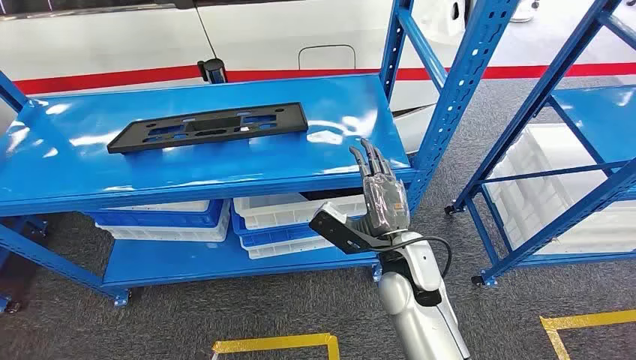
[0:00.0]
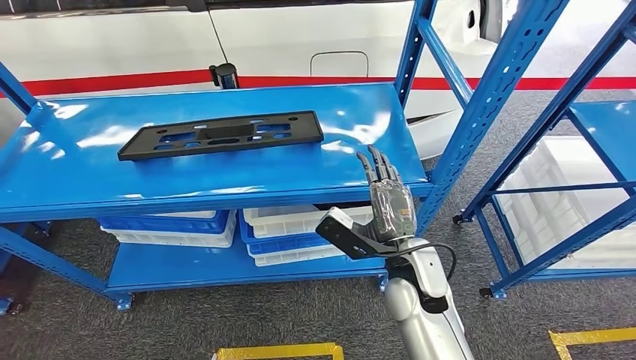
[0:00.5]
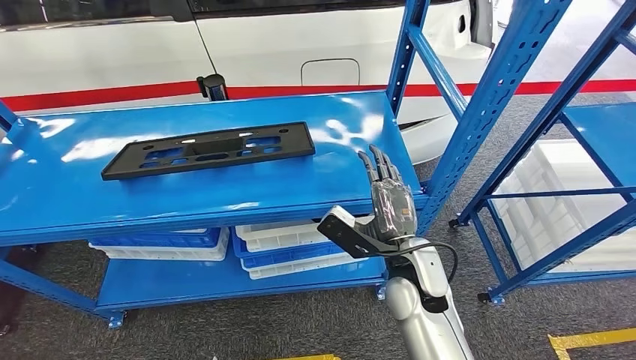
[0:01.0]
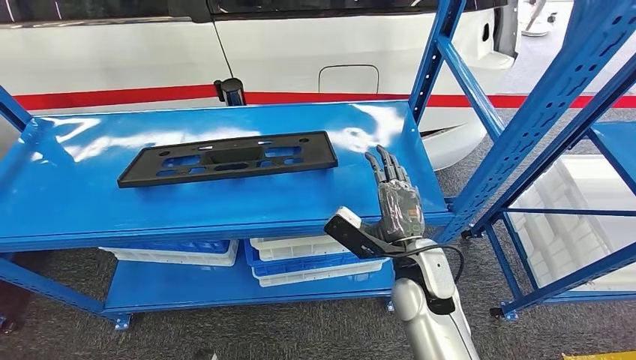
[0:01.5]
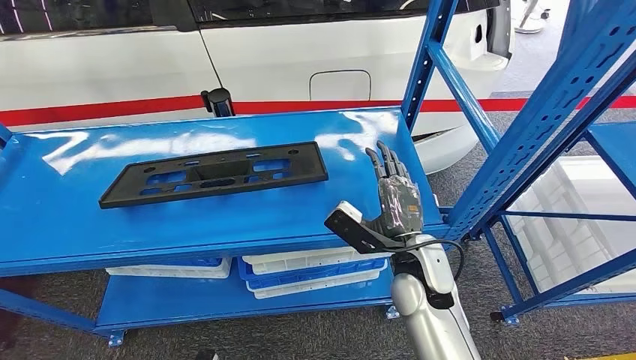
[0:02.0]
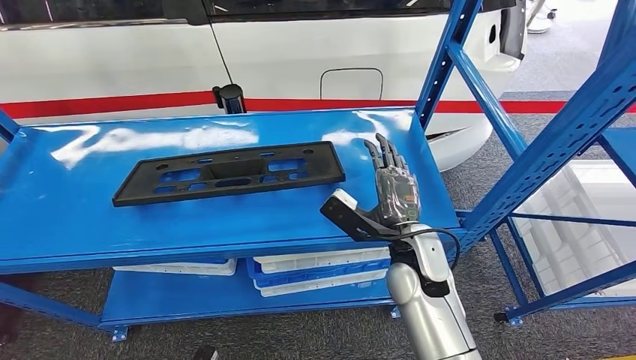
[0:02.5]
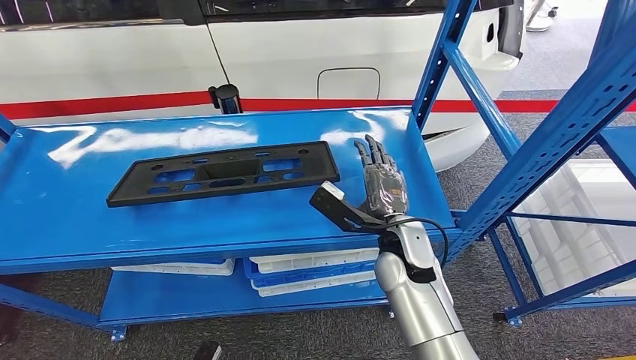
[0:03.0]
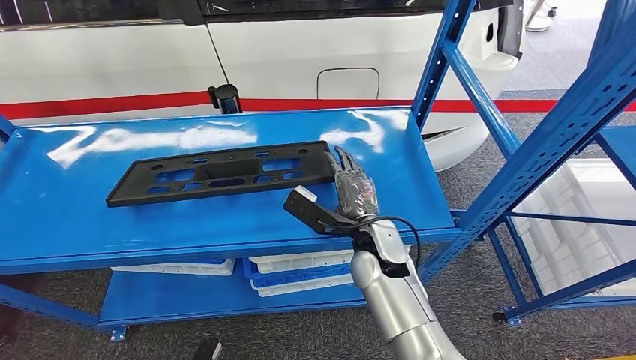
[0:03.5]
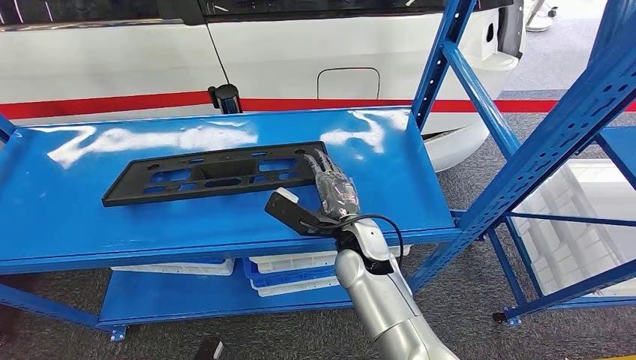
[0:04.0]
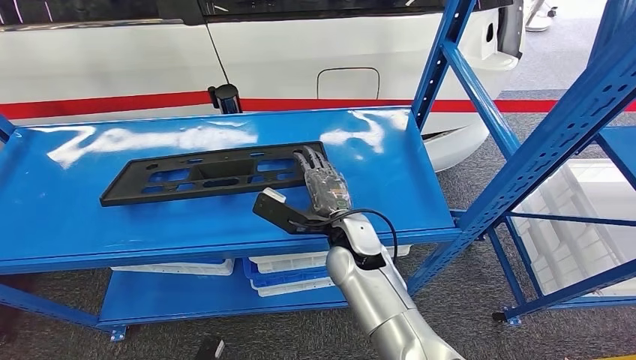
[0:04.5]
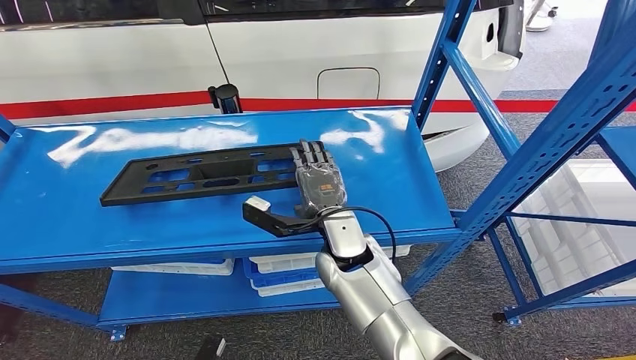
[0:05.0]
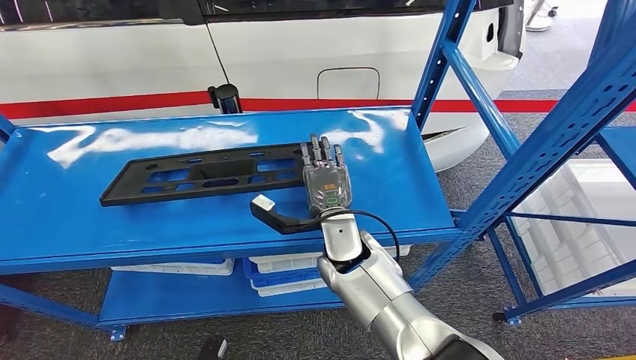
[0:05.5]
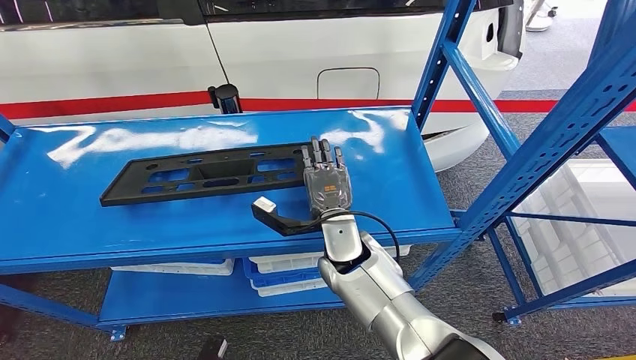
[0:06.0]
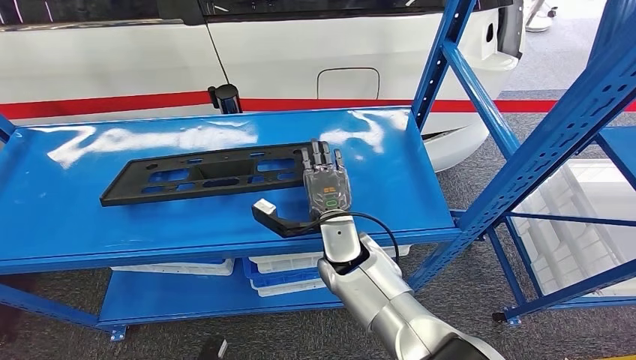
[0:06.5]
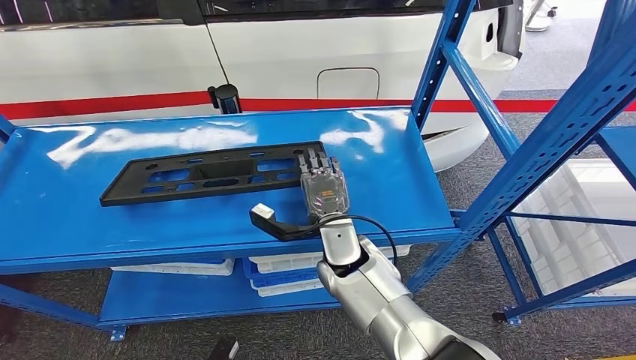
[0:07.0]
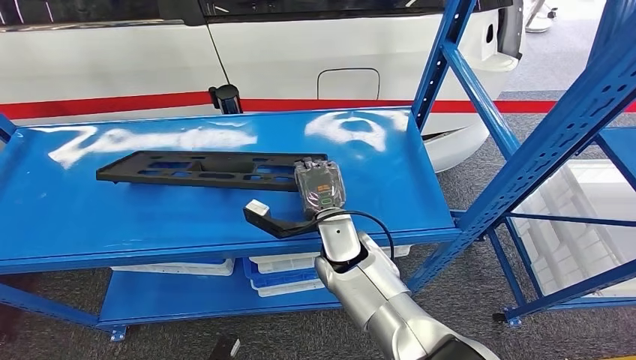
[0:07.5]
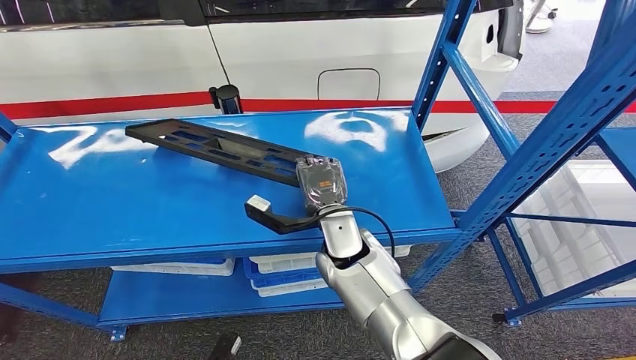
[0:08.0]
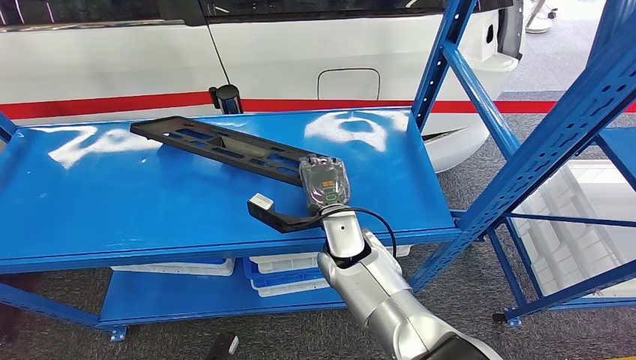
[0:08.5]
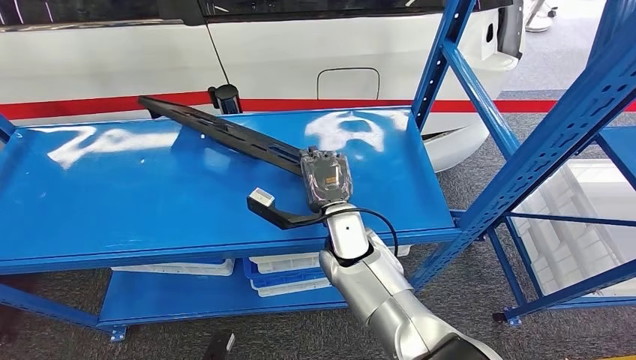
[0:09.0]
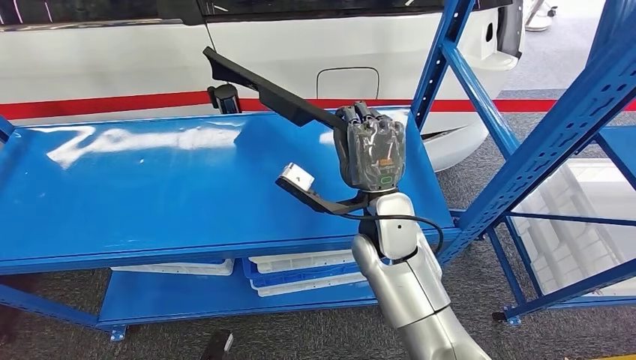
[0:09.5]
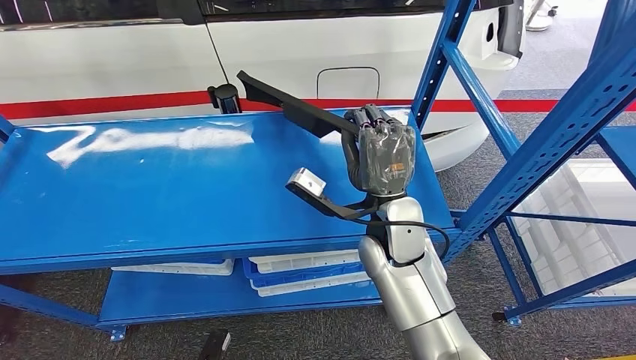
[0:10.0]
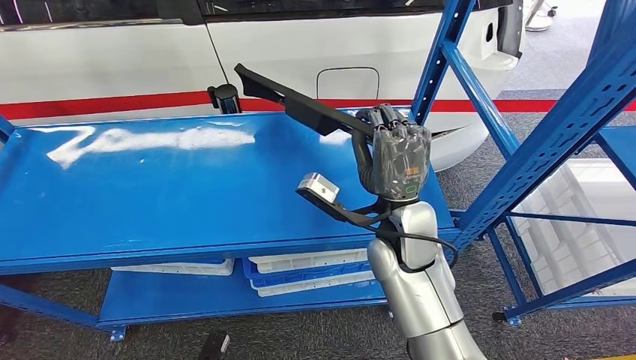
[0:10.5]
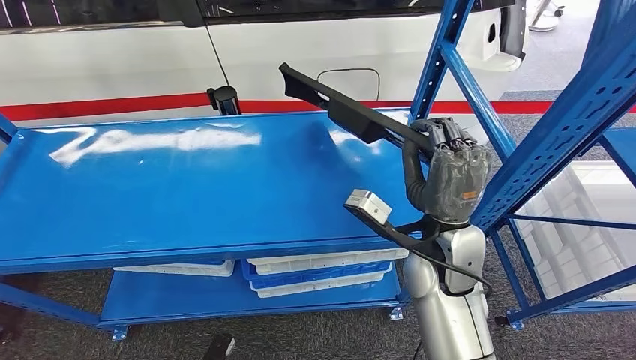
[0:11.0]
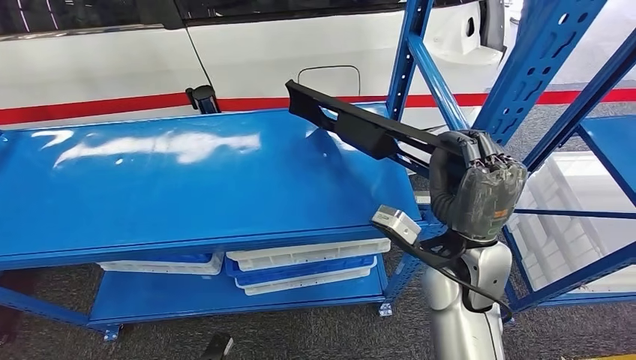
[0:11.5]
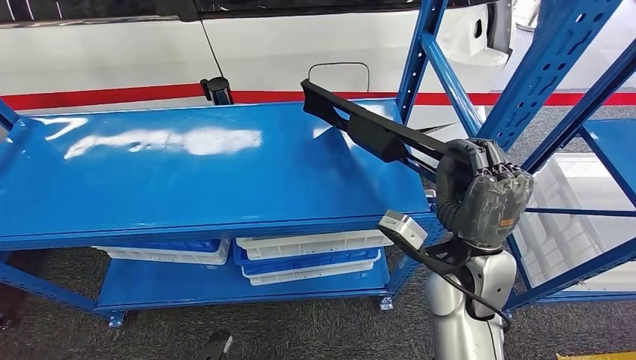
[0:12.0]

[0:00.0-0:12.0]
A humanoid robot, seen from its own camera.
0:06.0 to 0:08.0: The hands stay close to where they were, moving slightly.
0:08.0 to 0:10.0: The right hand travels upward by about 5 cm.

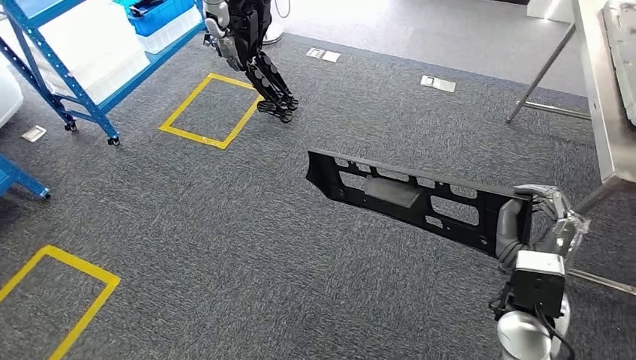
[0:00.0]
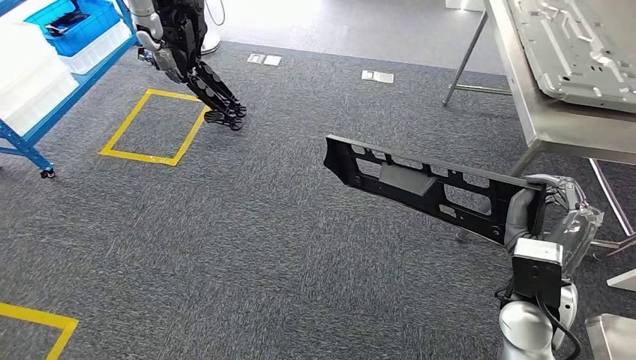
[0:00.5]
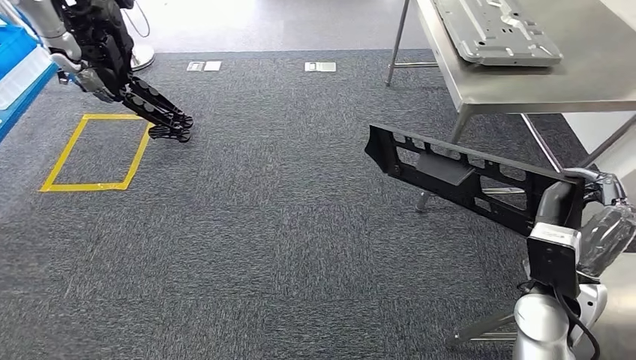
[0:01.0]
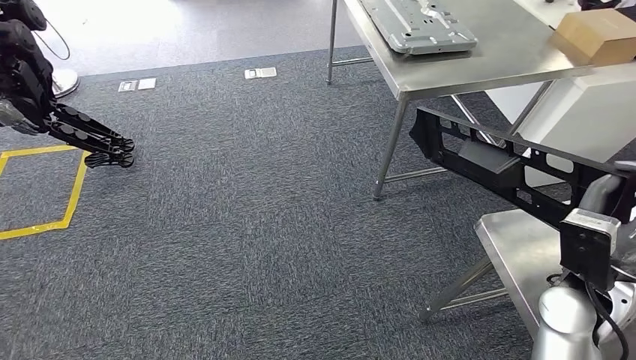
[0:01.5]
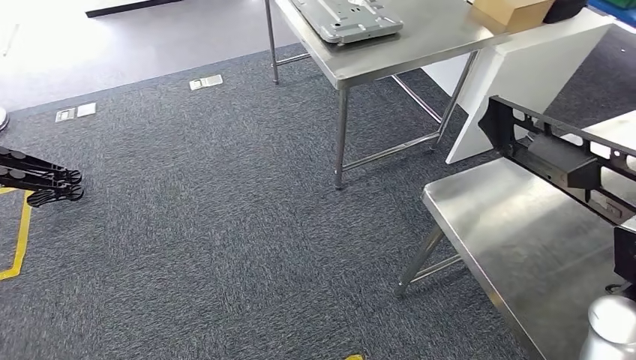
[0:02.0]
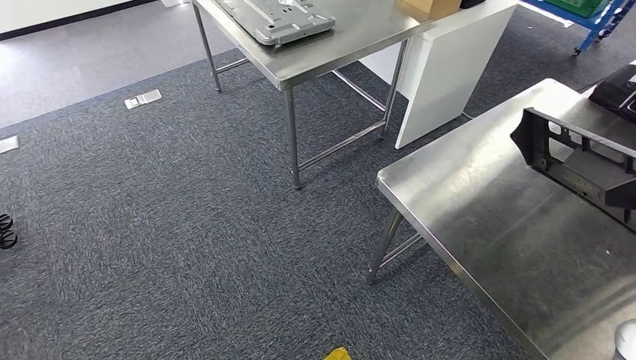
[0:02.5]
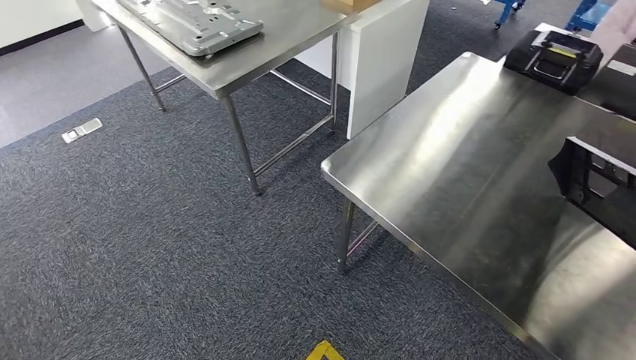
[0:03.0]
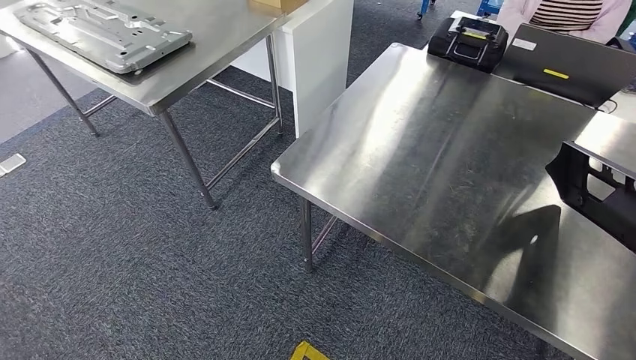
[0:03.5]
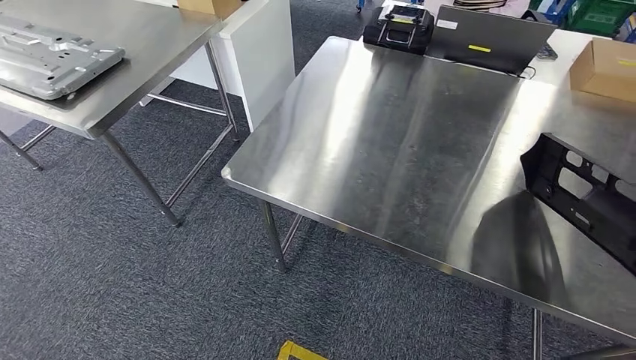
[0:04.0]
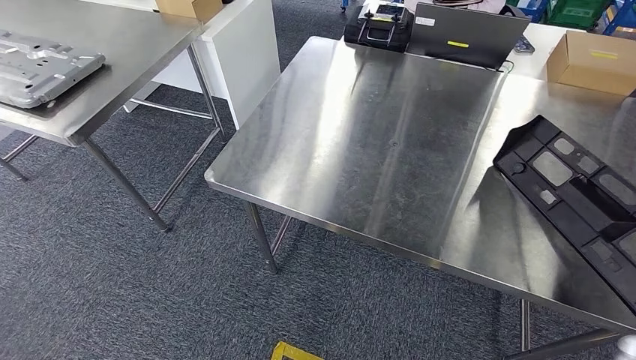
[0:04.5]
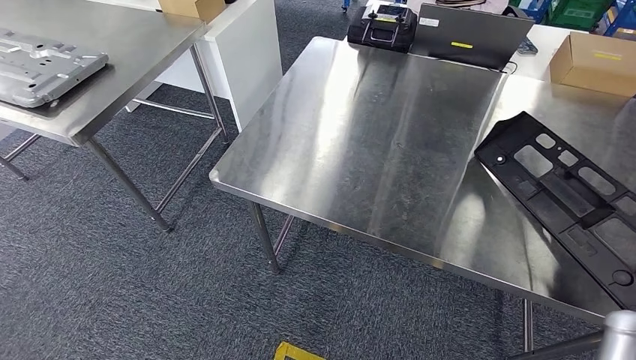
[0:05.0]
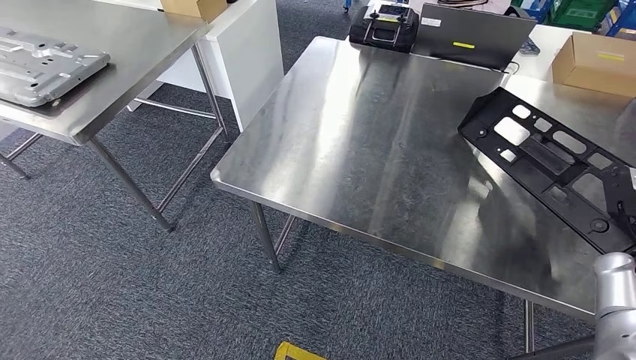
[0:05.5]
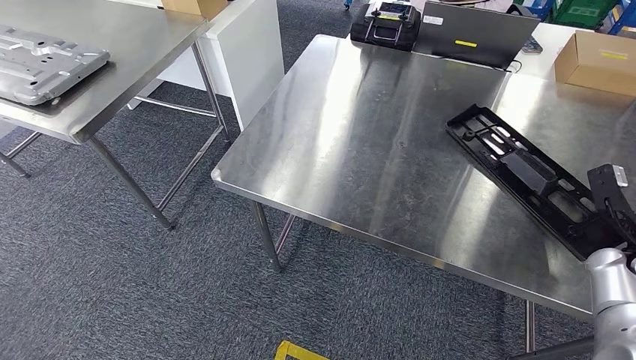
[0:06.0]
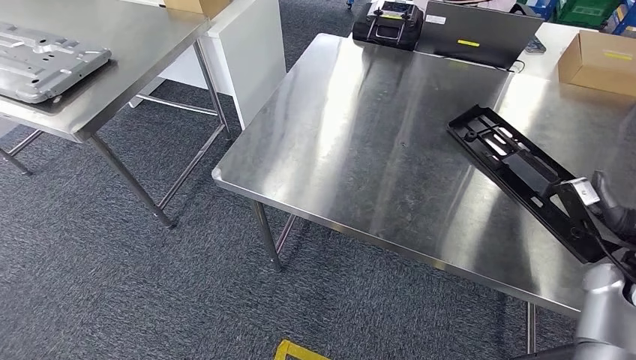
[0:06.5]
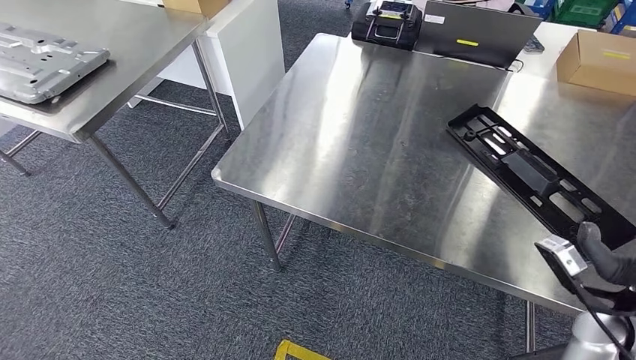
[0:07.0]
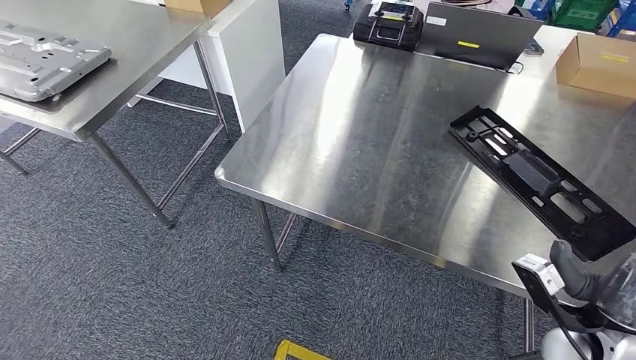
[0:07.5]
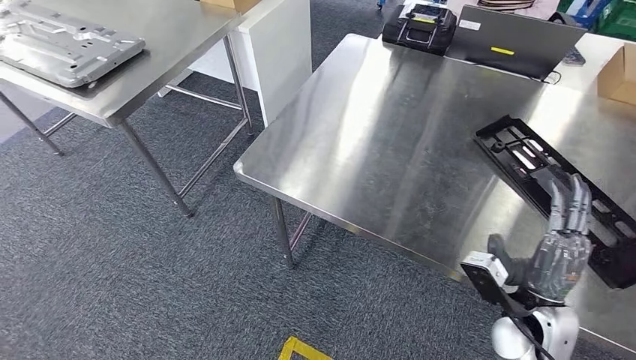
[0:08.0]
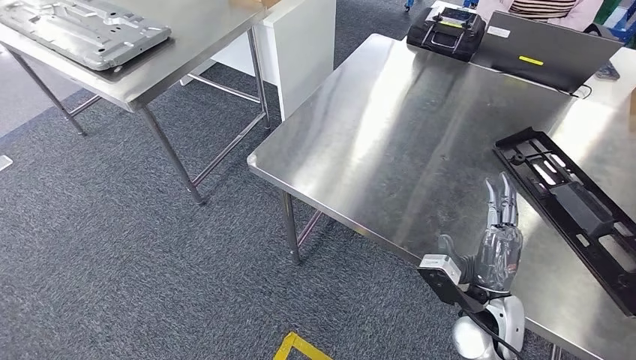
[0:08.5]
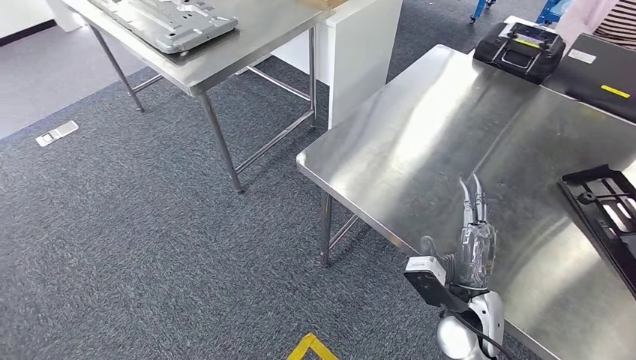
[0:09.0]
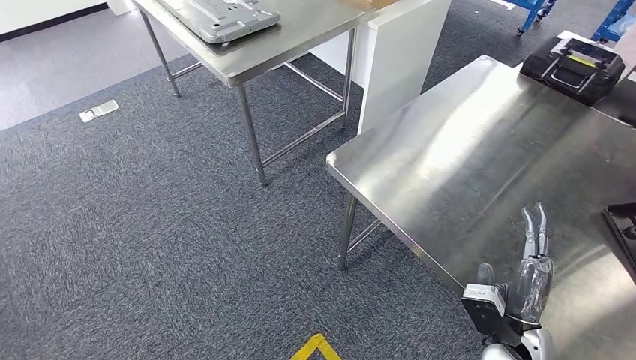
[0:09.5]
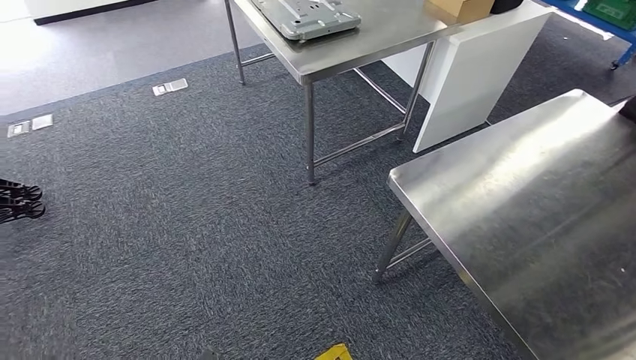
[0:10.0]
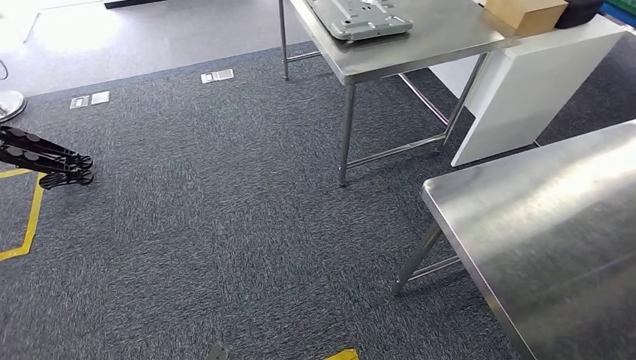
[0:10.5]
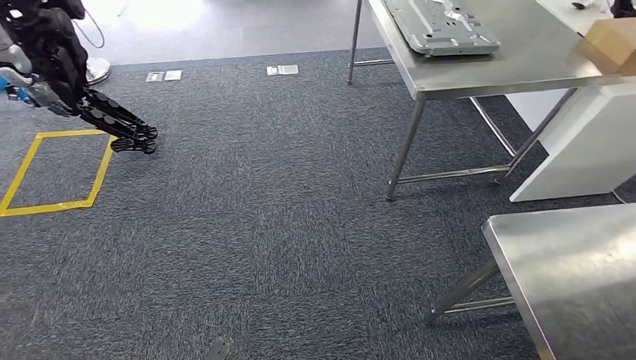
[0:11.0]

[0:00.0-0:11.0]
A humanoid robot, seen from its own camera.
Step, 0:00.0 to 0:05.0: Move the large material to the workbench.
